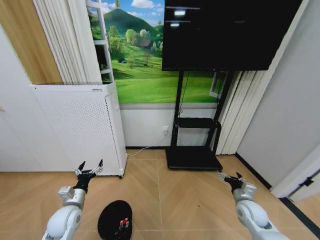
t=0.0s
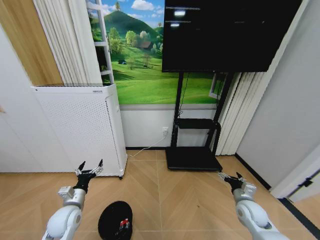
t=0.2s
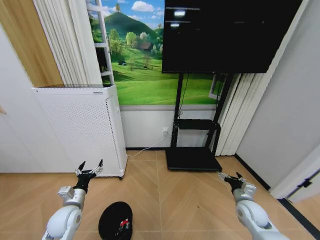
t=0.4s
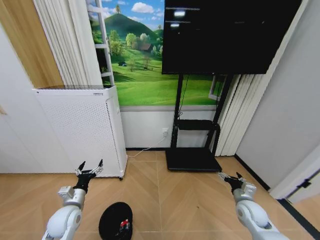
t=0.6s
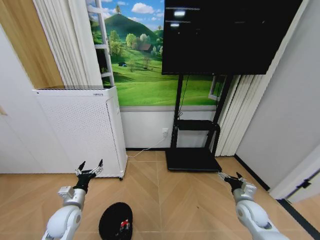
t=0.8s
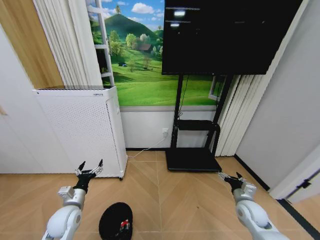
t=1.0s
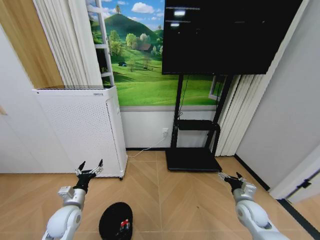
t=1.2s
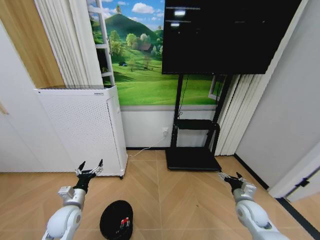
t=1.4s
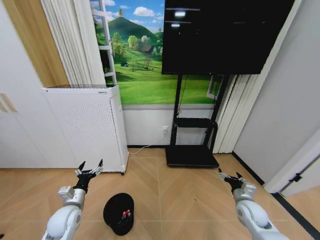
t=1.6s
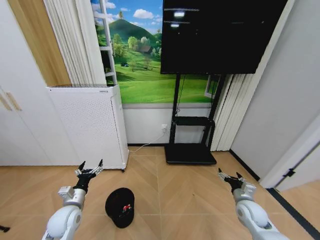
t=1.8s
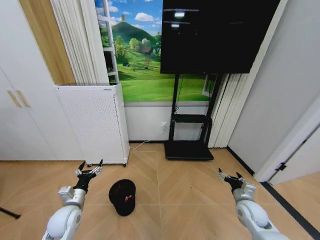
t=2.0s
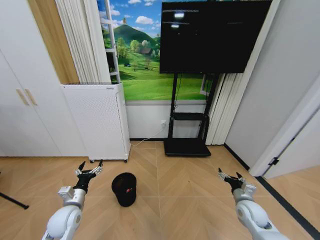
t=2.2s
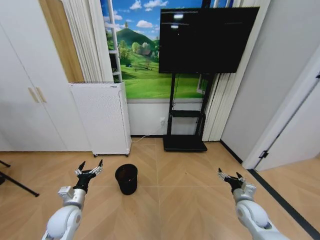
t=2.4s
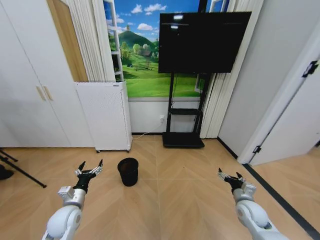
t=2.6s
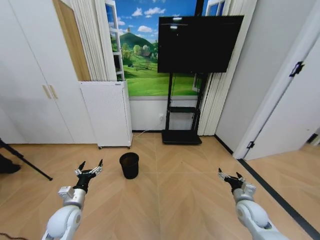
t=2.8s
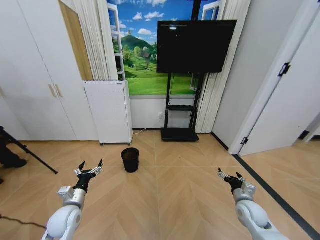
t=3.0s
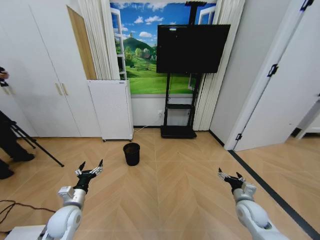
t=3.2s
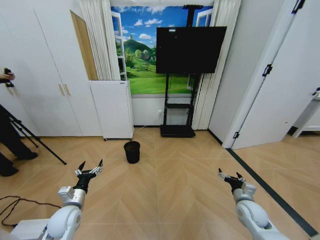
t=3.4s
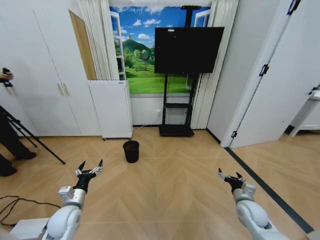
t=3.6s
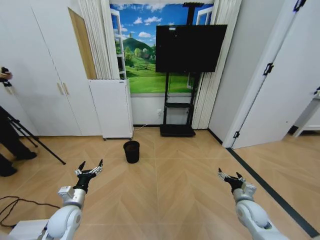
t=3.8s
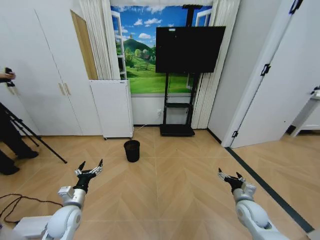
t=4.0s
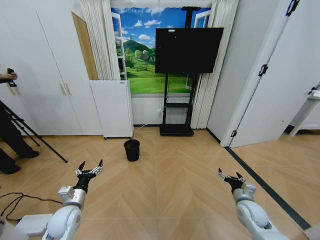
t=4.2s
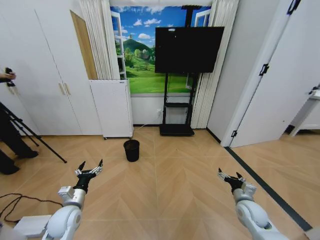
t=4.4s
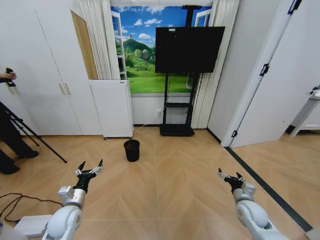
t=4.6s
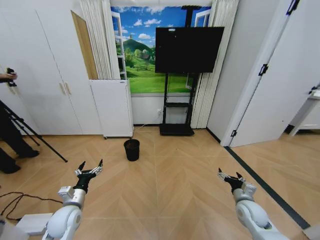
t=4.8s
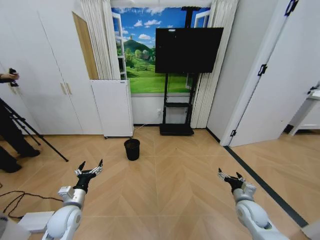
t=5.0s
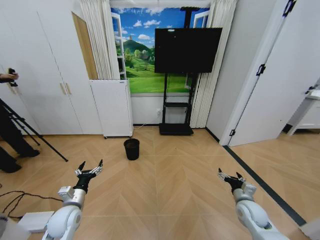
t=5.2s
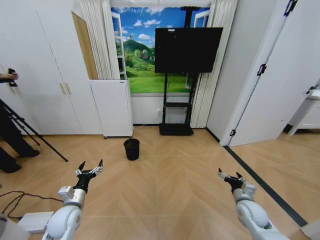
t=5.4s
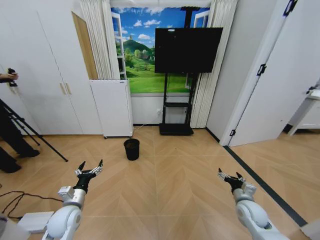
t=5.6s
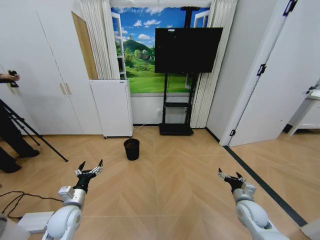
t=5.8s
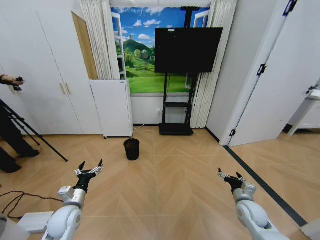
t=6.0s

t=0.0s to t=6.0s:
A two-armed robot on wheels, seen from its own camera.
Task of the whole recording: Pick up the trash bin and place the garbage on the floor into it.
t=0.0s to t=1.6s: Both grippers stay put.
t=4.4s to t=6.0s: The two grippers keep their place.

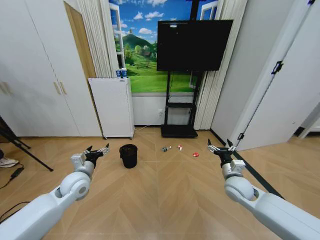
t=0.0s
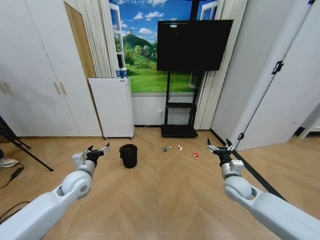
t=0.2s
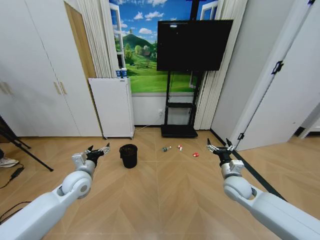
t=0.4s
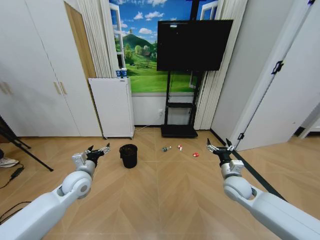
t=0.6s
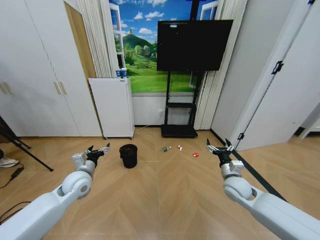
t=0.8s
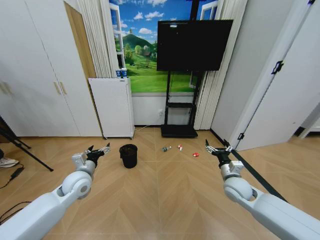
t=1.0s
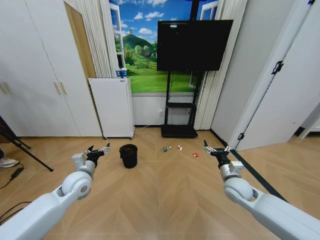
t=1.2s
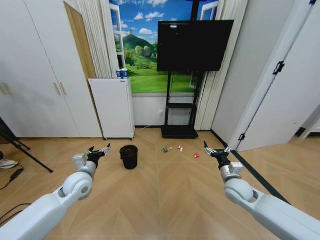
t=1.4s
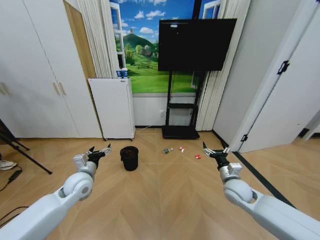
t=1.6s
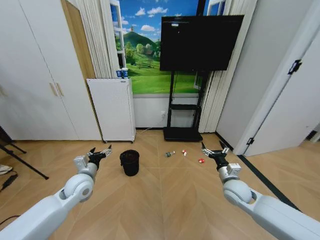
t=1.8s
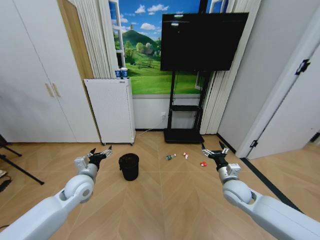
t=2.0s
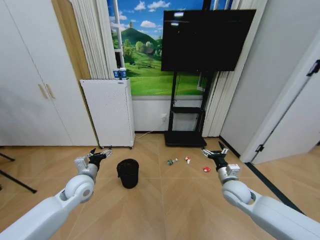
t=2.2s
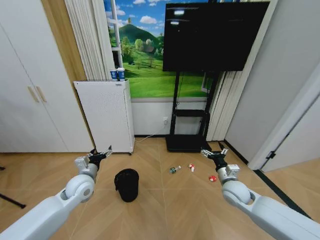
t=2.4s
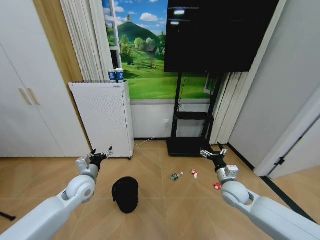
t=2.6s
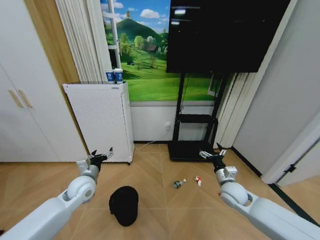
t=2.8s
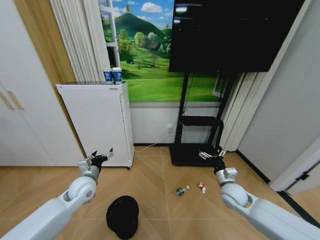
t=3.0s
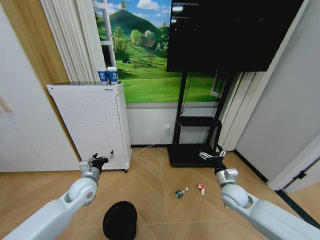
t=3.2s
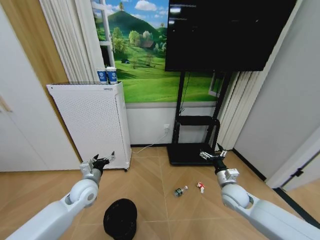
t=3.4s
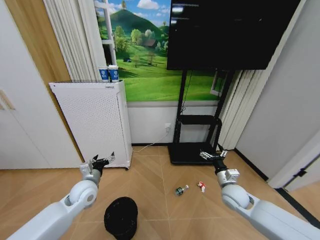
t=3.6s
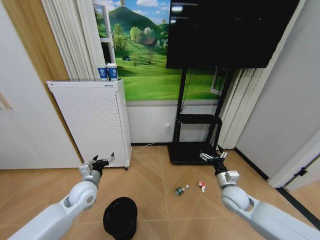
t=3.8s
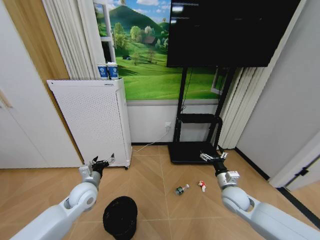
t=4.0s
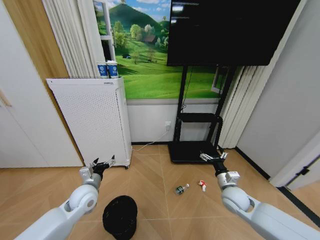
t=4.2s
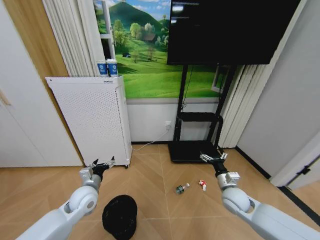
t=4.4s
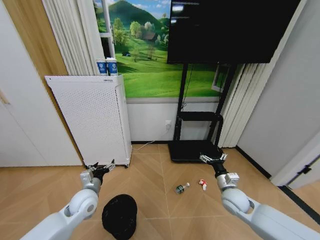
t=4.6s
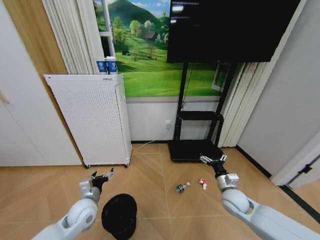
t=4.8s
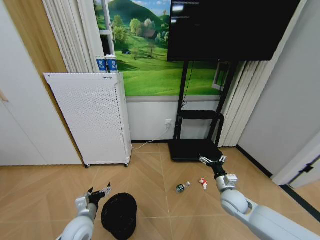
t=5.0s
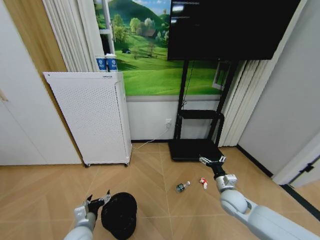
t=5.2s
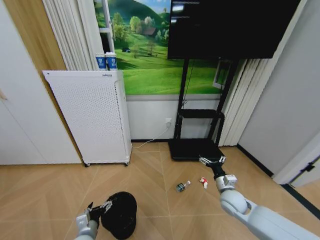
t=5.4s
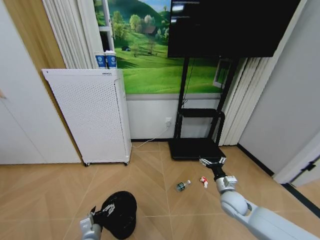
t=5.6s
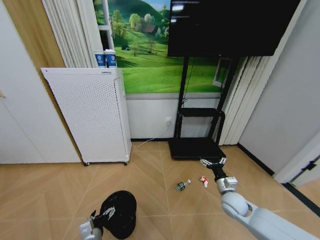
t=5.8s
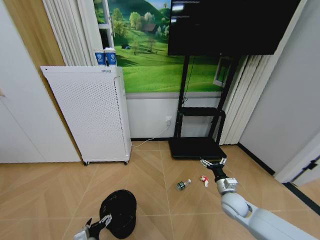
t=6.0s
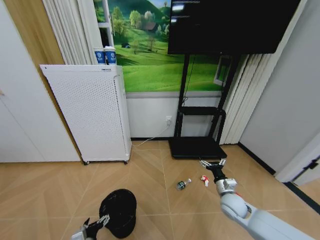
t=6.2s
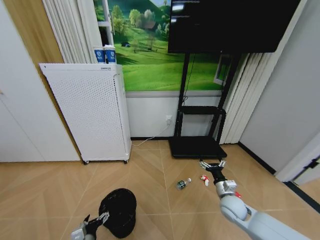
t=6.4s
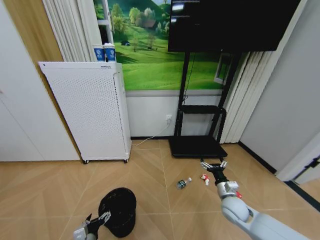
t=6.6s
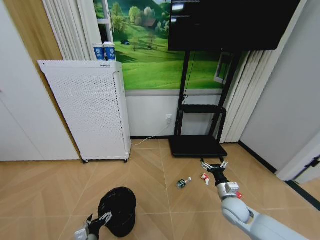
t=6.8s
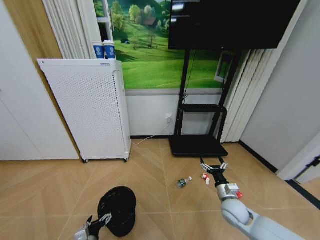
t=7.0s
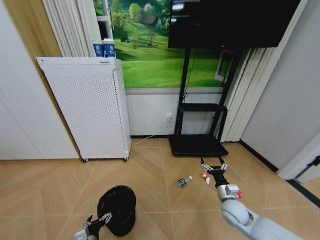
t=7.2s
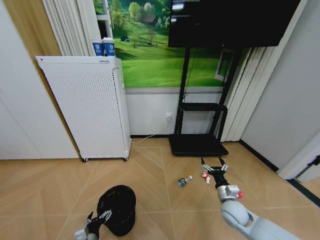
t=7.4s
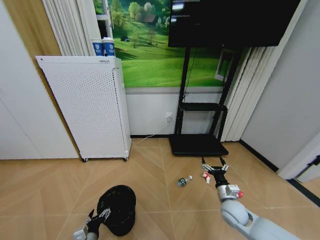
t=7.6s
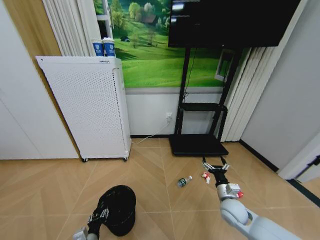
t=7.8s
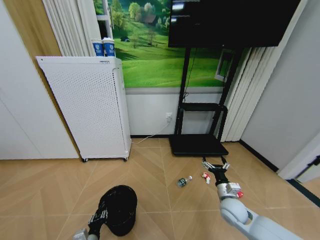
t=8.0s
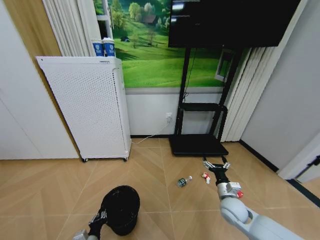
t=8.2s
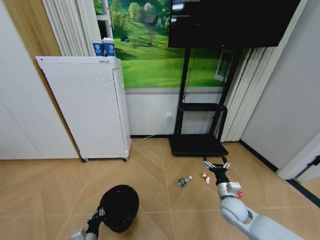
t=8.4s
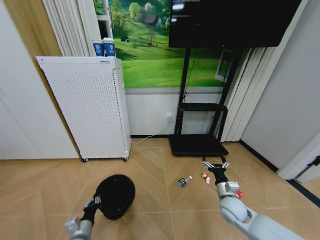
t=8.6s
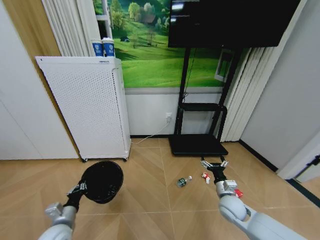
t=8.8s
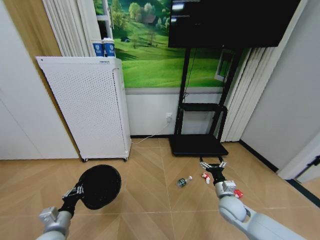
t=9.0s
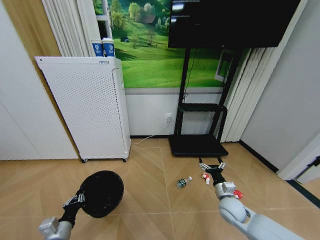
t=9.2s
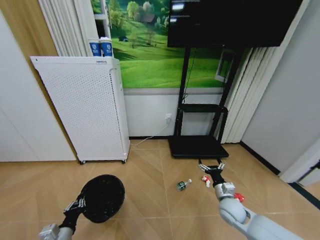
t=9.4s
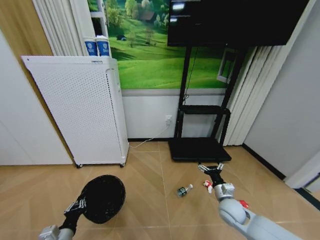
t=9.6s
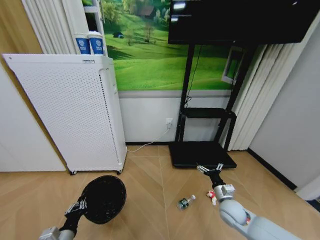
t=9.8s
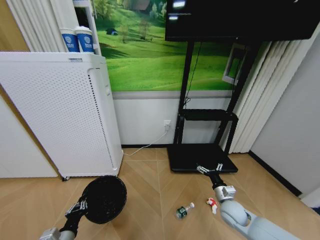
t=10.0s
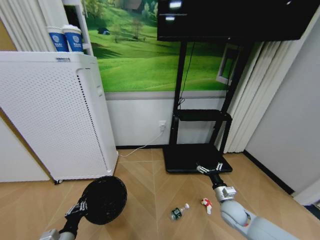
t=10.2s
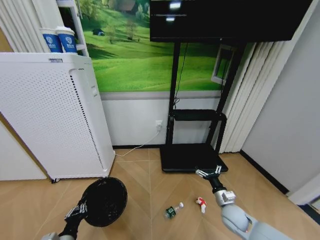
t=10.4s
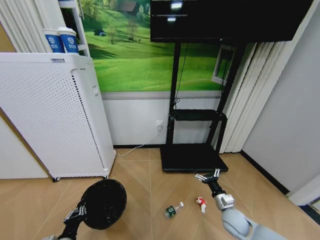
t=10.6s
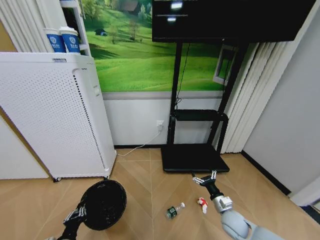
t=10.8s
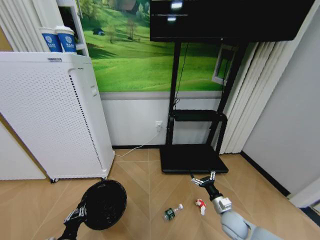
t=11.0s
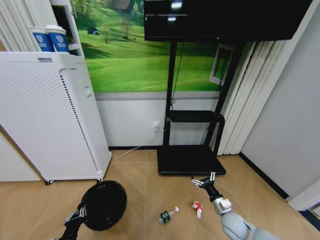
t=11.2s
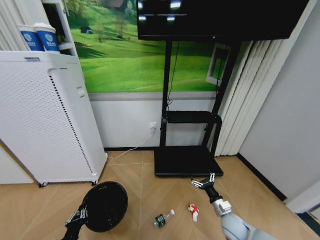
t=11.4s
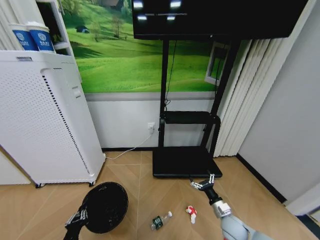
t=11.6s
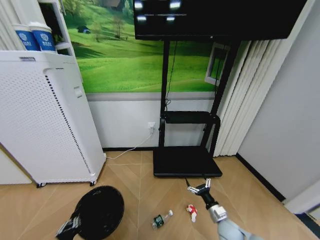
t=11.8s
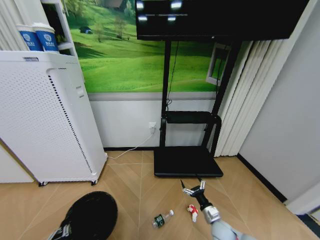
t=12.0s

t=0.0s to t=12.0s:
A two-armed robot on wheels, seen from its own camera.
Task of the whole recording: Pick up the trash bin and place the garbage on the floor into it.
t=4.4s to t=6.0s: The left gripper goes some 20 cm backward and downward.
t=6.0s to t=7.6s: There are only small adjustments of the grippers.
t=7.6s to t=9.0s: The left gripper moves upward and to the left, roughly 15 cm, and closes up.
t=9.0s to t=10.4s: The left gripper goes about 5 cm backward.
t=10.4s to t=12.0s: The right gripper is displaced downward by approximately 5 cm. Meanwhile the left gripper goes about 5 cm backward.

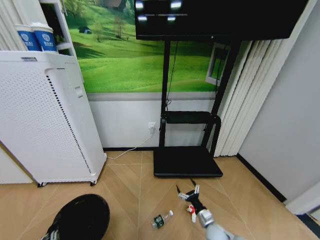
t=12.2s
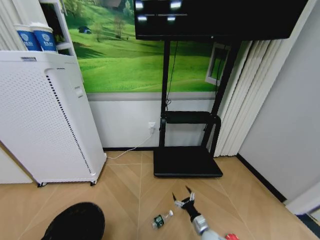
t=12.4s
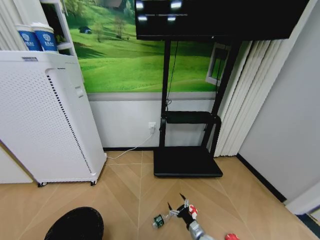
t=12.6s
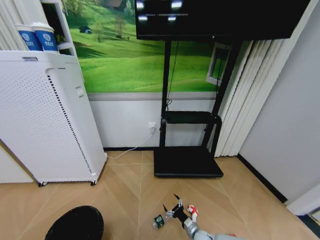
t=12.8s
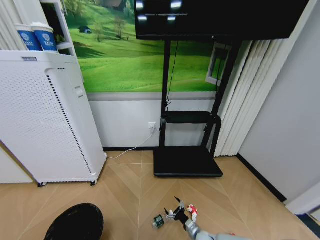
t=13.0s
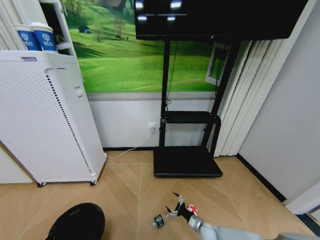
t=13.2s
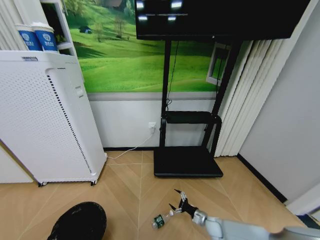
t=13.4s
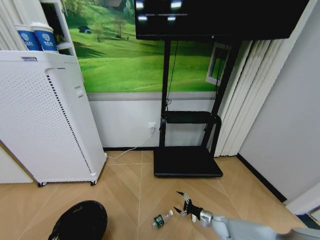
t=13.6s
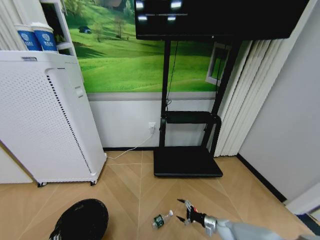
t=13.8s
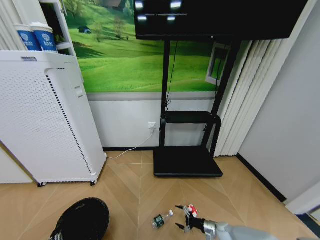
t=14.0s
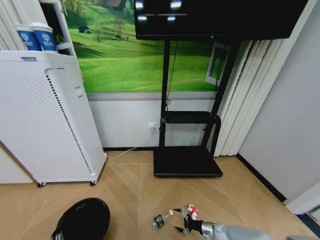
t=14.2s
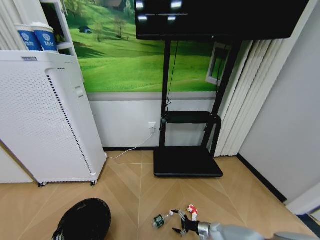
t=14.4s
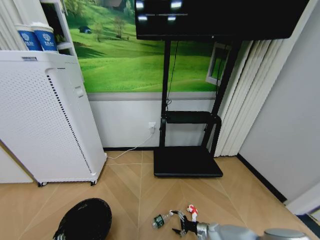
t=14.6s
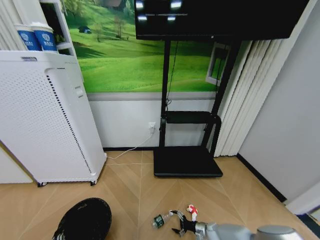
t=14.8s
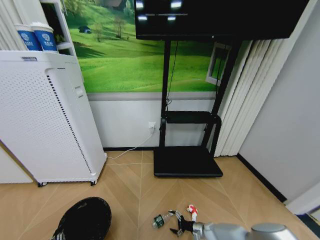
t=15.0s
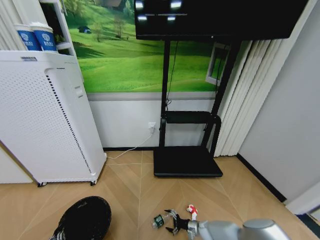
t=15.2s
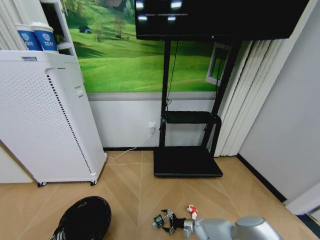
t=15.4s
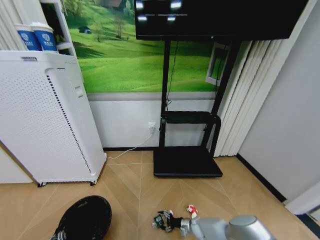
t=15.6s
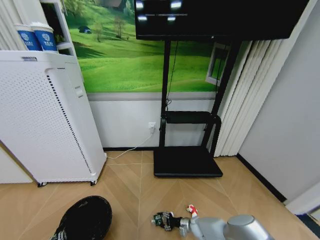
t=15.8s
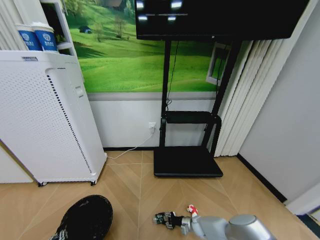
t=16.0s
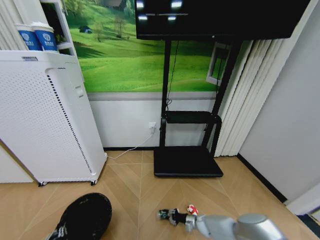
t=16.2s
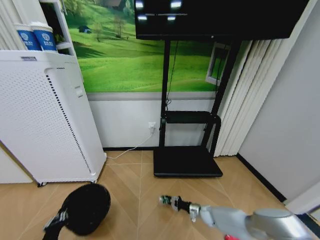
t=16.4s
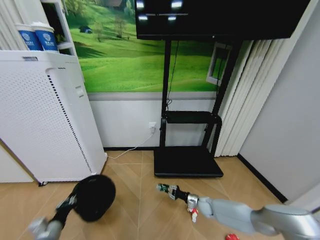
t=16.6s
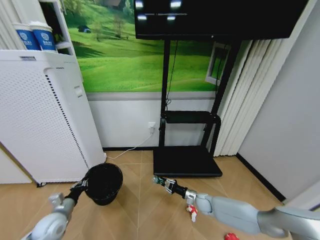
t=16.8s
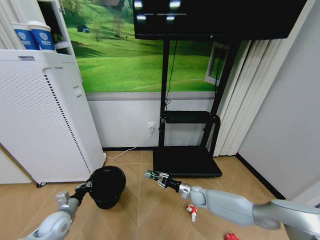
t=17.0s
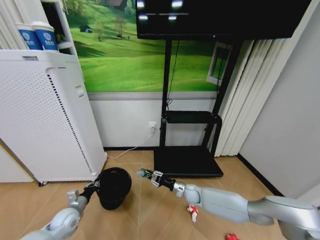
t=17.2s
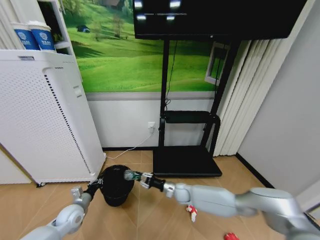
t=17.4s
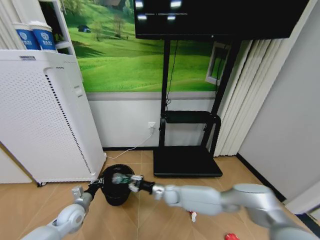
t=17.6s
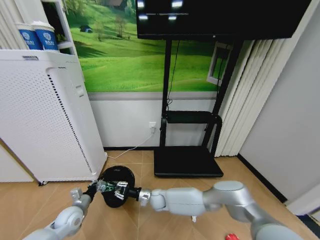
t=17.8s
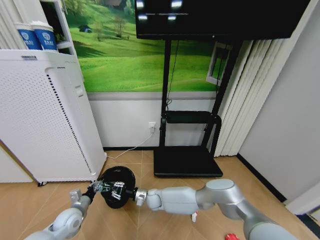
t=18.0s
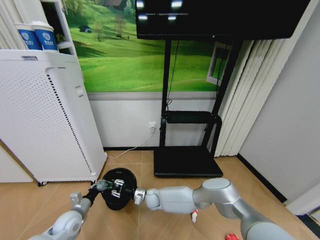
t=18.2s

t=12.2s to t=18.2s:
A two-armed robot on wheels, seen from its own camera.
Task of the whole recording: Pick up the trash bin and place the garbage on the floor into it.
t=12.2s to t=13.8s: The right gripper travels to the right and downward by approximately 10 cm; the left gripper is displaced downward by about 5 cm.
t=13.8s to t=15.2s: The right gripper shifts about 10 cm downward and to the left.
t=15.2s to t=16.6s: The left gripper is displaced forward by some 15 cm; the right gripper moves upward and forward, approximately 15 cm, and closes up.
t=16.6s to t=18.2s: The right gripper moves to the left, roughly 30 cm, while the left gripper is displaced forward by about 10 cm.
